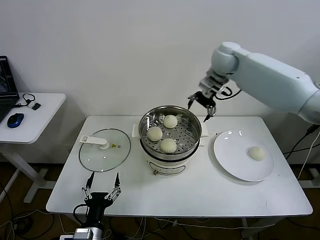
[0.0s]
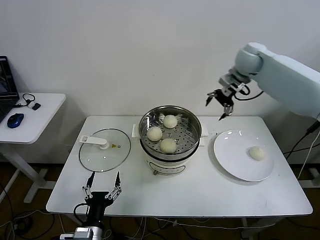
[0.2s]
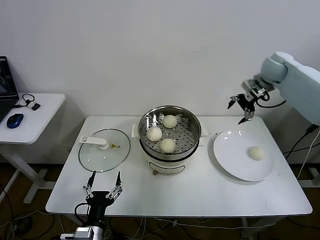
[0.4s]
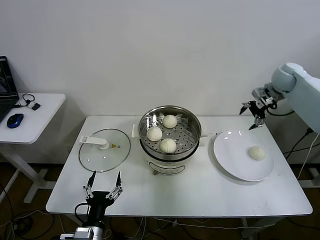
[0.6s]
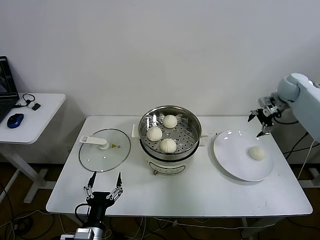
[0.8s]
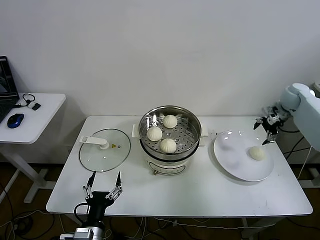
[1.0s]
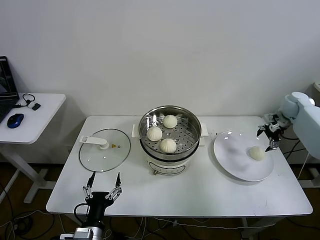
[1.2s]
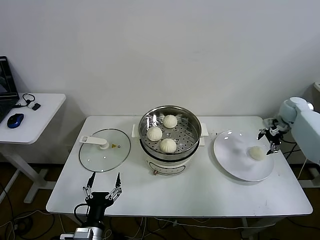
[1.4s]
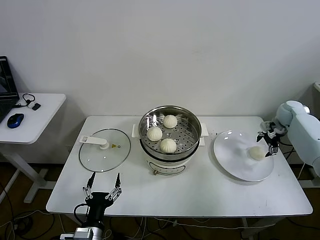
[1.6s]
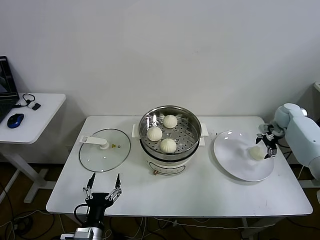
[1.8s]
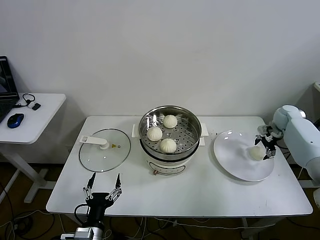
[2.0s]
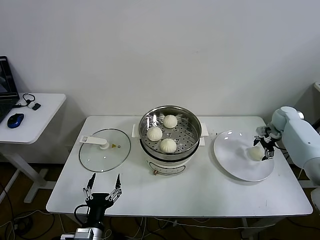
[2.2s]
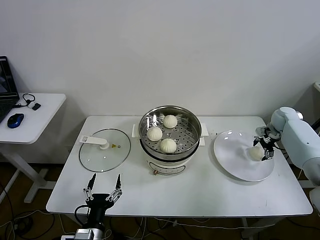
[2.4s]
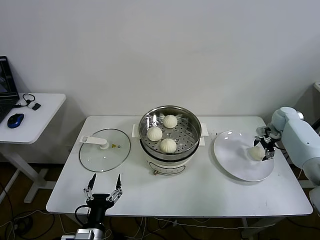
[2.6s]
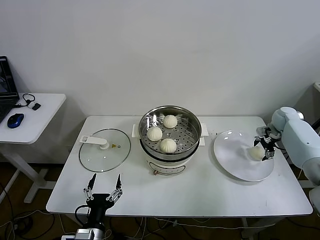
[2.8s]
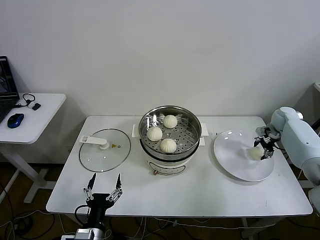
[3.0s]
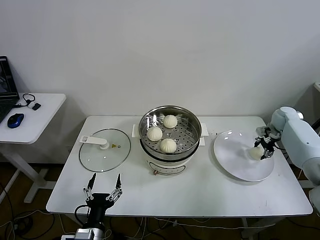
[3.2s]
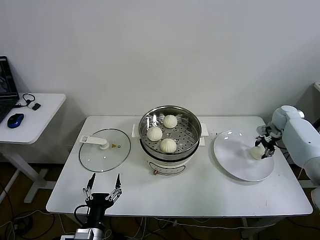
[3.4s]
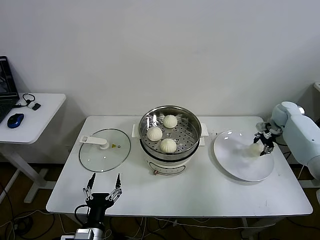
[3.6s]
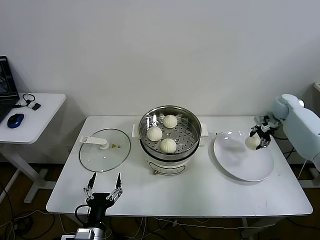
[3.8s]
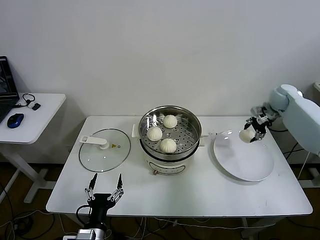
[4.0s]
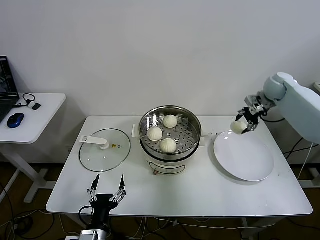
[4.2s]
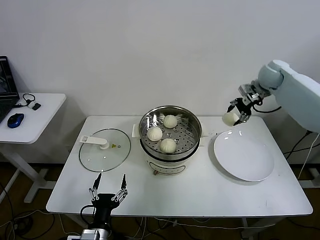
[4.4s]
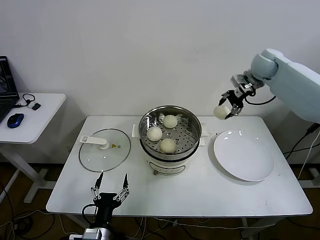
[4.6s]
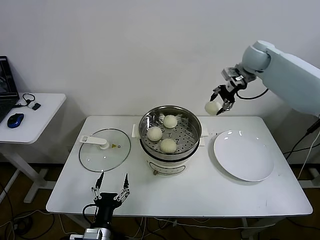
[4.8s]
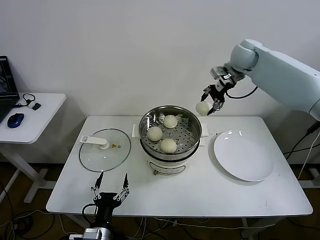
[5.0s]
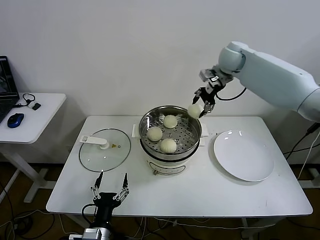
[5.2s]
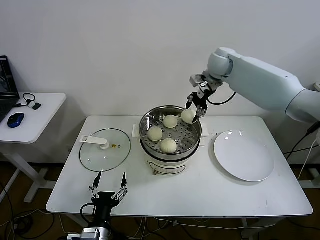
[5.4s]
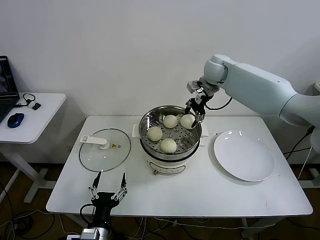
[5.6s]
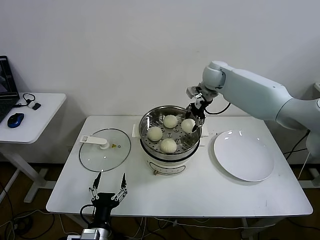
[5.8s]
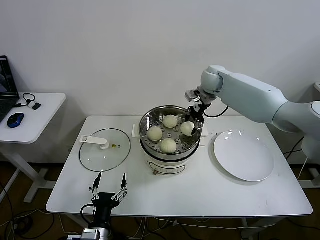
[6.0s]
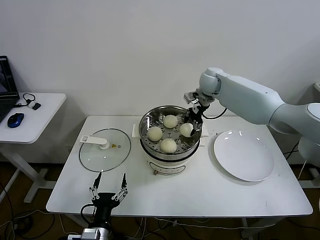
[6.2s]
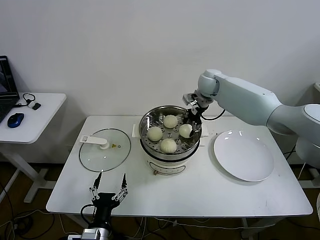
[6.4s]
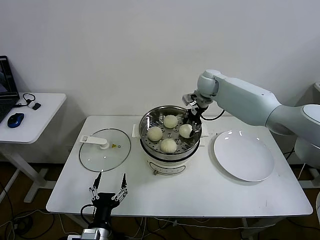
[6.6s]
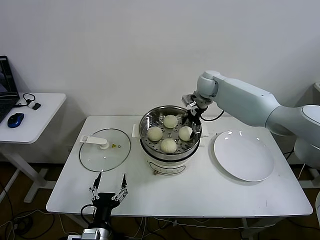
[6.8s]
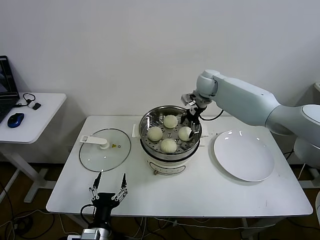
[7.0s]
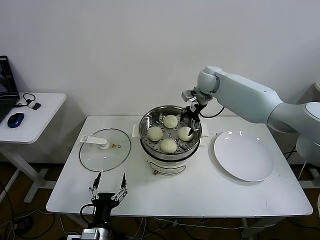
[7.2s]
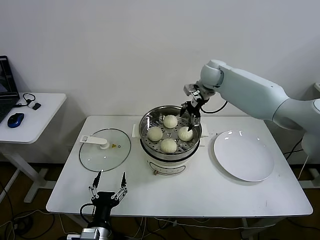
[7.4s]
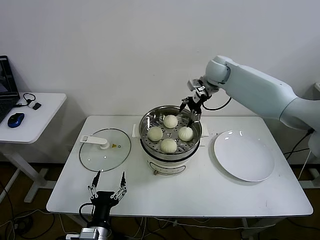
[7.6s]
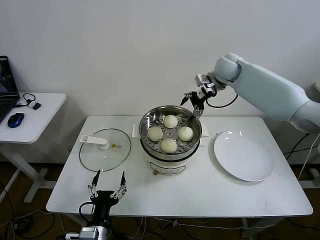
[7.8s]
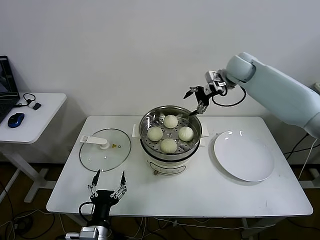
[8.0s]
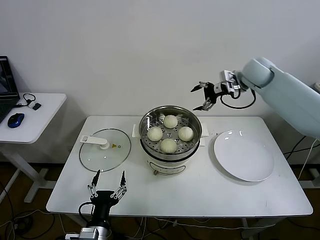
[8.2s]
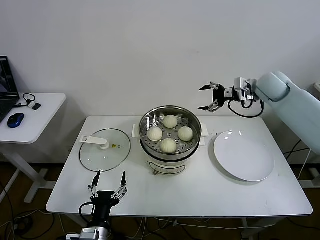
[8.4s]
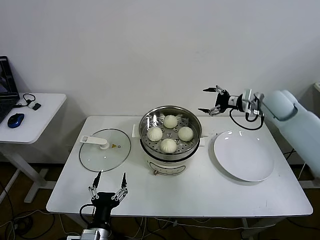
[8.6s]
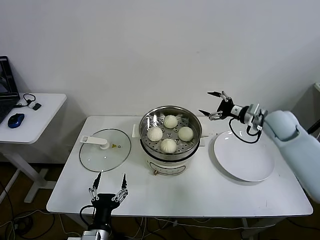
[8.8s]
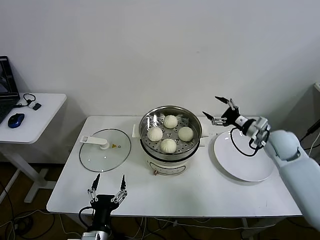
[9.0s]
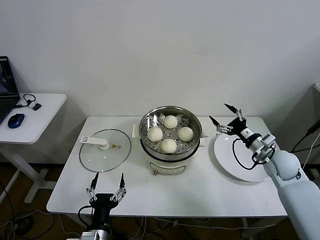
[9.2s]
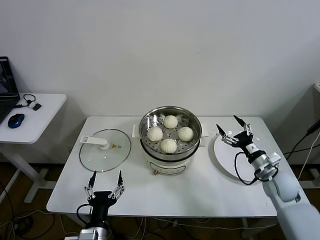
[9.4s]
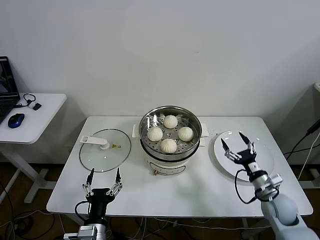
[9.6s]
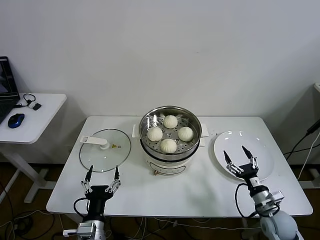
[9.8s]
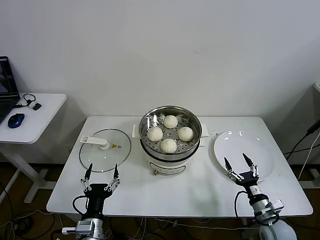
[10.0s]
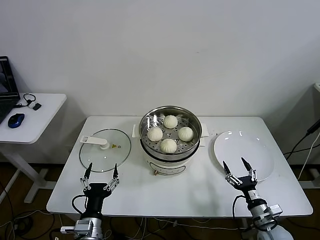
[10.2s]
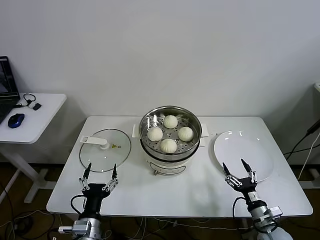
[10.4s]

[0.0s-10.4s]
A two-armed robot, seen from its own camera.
Step, 0.0s to 3.0s: Grasp the baozi in the plate with right gripper.
Step, 3.2s to 7.0s: Place the baozi on the steamer with right gripper.
0.0s to 1.4s: The right gripper moves to the right and downward, about 35 cm.
1.4s to 3.0s: The right gripper goes approximately 5 cm downward, and closes.
3.0s to 4.4s: The right gripper travels upward and to the left by approximately 20 cm, and closes up.
4.4s to 6.0s: The right gripper goes some 20 cm to the left.
6.0s to 7.4s: The right gripper opens its fingers.
7.4s to 9.0s: The right gripper shifts some 30 cm to the right, backward and downward.
9.0s to 10.4s: The right gripper travels backward and downward by some 35 cm.

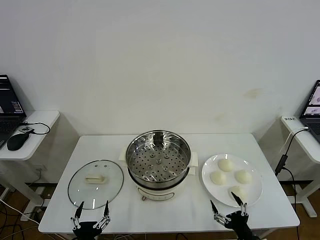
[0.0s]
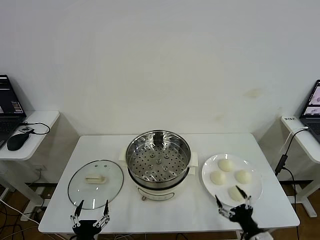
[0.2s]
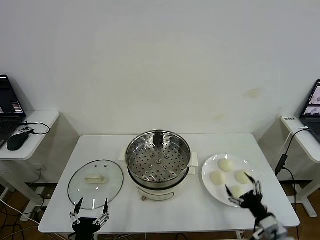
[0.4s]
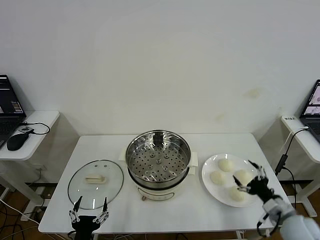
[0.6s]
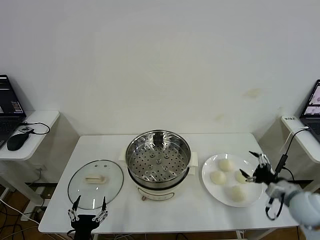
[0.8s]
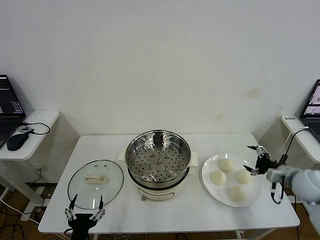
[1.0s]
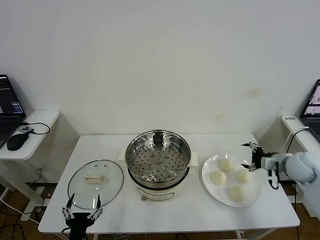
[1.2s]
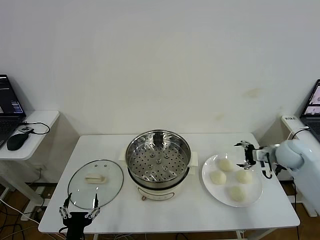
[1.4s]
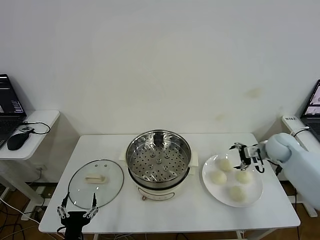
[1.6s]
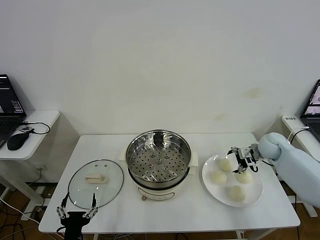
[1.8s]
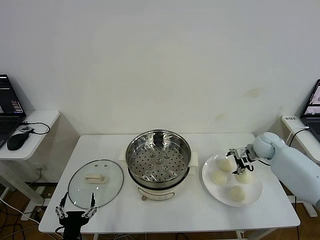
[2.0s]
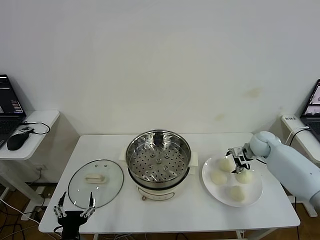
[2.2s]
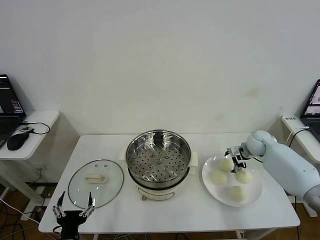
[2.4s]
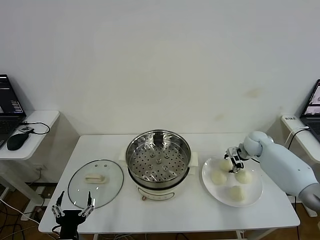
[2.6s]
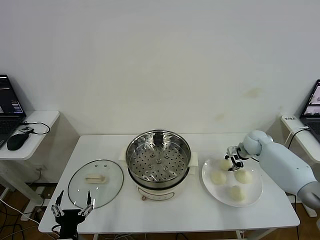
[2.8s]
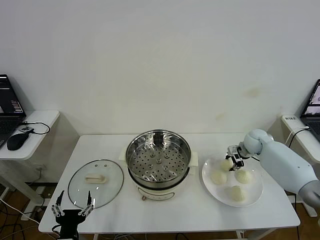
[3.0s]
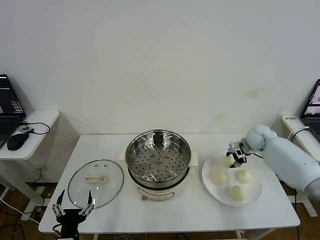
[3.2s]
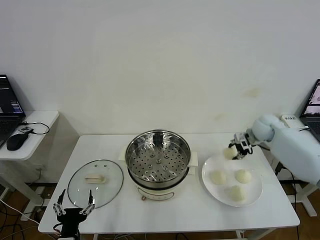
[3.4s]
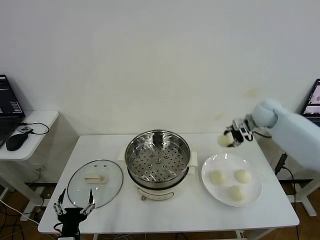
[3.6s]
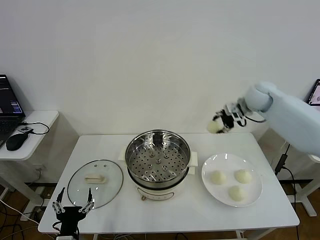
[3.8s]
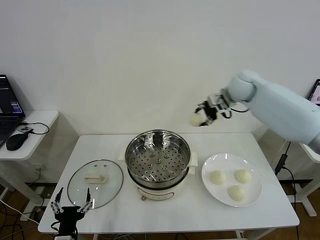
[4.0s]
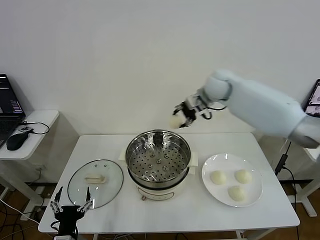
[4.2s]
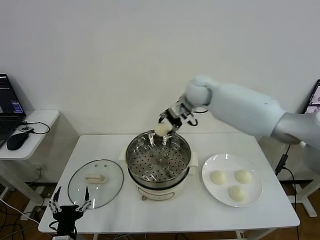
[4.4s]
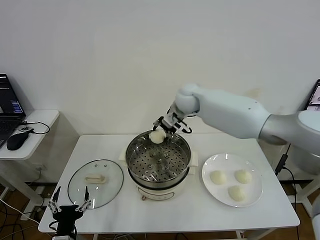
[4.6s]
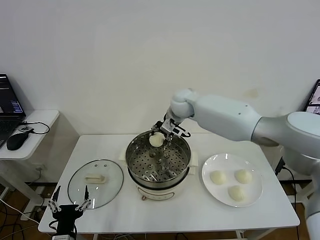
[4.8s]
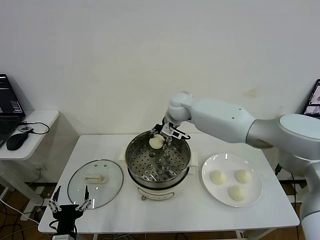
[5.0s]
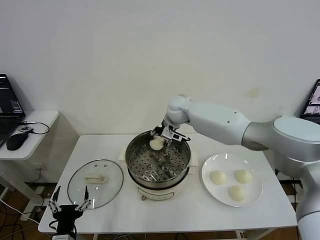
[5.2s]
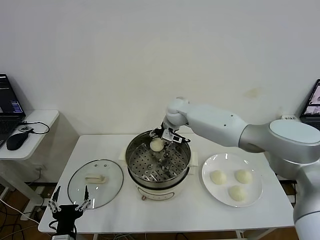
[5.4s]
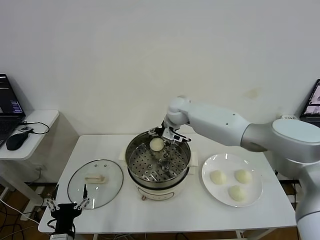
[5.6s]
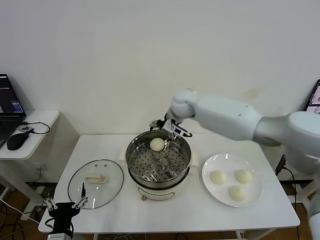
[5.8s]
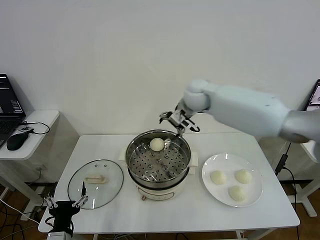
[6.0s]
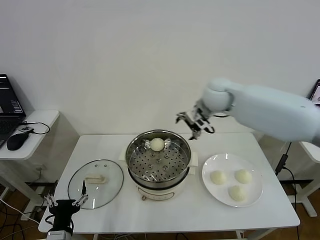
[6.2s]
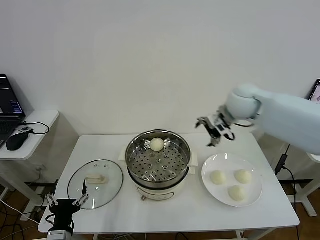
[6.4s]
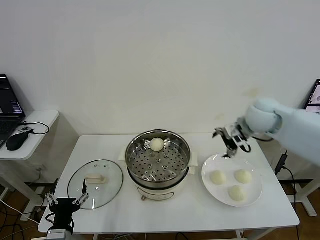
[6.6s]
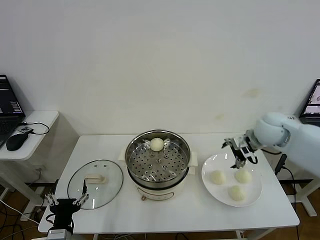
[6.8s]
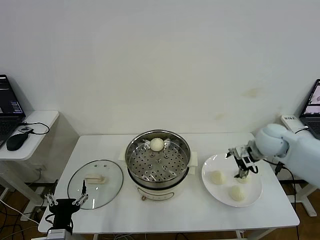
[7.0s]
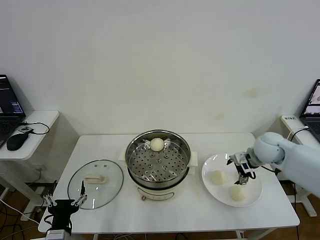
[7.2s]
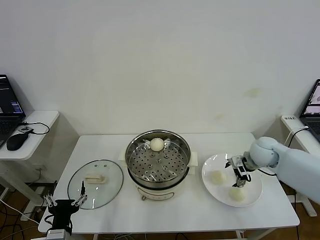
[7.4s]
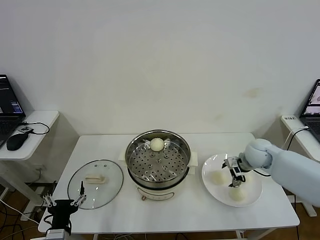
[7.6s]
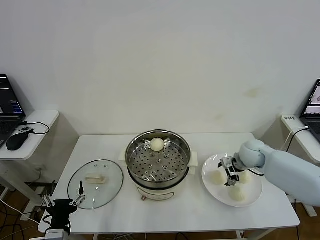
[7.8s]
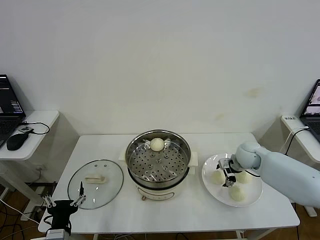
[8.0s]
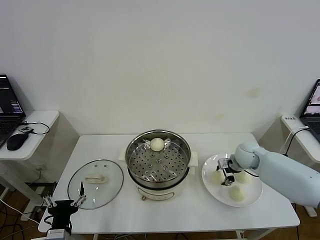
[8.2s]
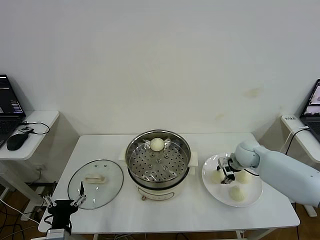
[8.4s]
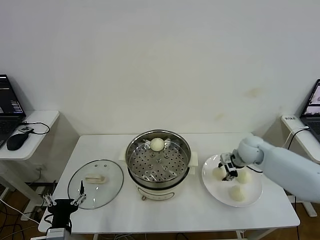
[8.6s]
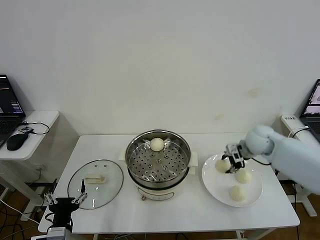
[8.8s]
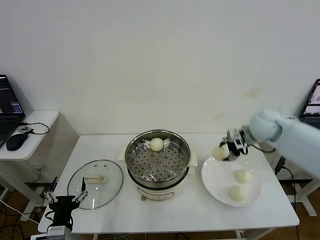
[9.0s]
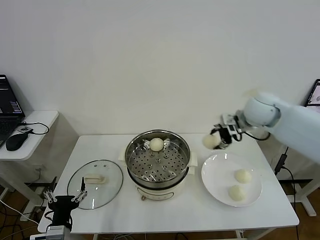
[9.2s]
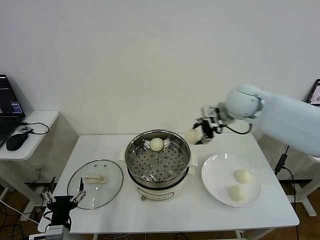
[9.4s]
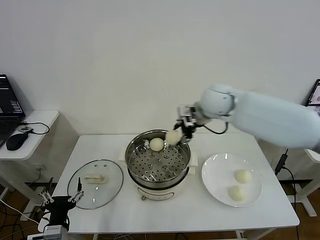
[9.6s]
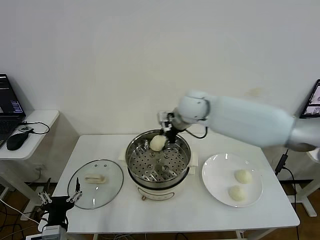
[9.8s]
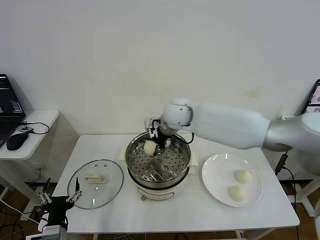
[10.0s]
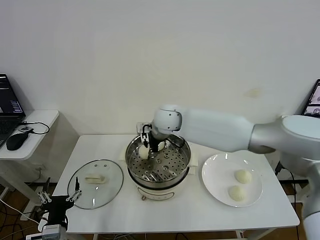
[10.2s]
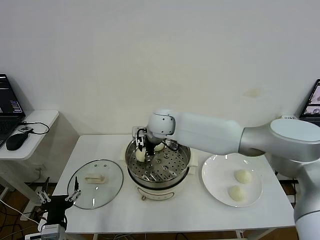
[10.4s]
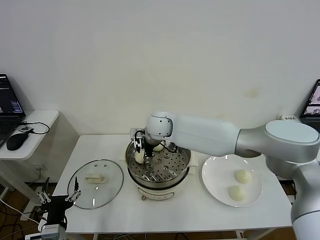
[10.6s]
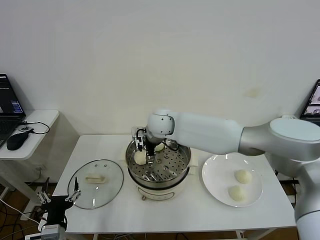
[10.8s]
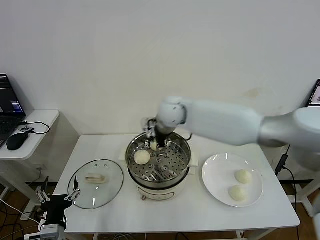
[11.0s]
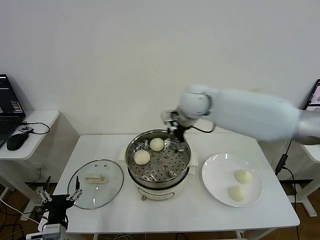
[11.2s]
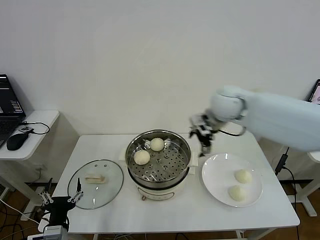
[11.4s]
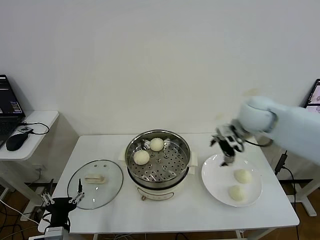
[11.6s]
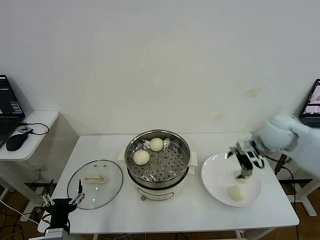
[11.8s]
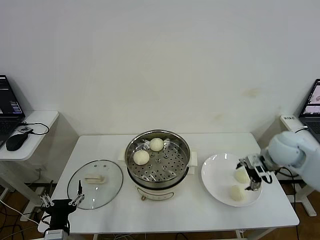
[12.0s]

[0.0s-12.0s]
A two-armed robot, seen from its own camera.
Step, 0.0s to 2.6s: Grasp the baozi in the plate with right gripper.
Step, 2.8s to 5.6s: Place the baozi on the steamer with right gripper.
Step, 5.8s to 8.2s: Grasp the baozi in the plate with right gripper.
Step, 8.4s to 10.6s: Place the baozi on the steamer with right gripper.
1.6s to 3.0s: The right gripper moves forward, roughly 5 cm, and closes its fingers.
3.0s to 4.4s: The right gripper is displaced to the left and upward by approximately 35 cm.
4.4s to 6.0s: The right gripper goes roughly 5 cm to the right, travels downward and back again, approximately 5 cm each way, and opens.
6.0s to 7.6s: The right gripper heads downward and to the right, covering approximately 25 cm.
7.6s to 9.0s: The right gripper heads upward, covering about 15 cm, and closes its fingers.
9.0s to 10.4s: The right gripper heads to the left, covering some 30 cm.
10.4s to 12.0s: The right gripper moves to the right, some 40 cm, and opens.
